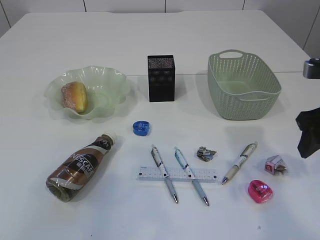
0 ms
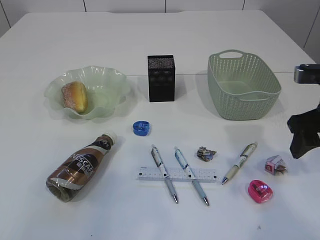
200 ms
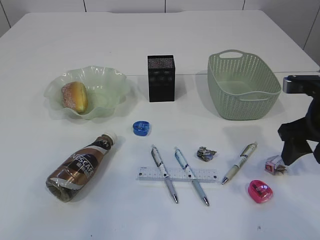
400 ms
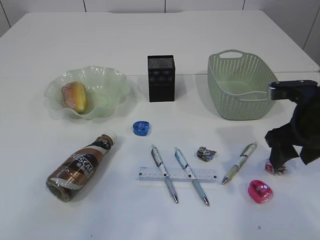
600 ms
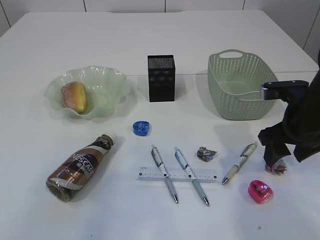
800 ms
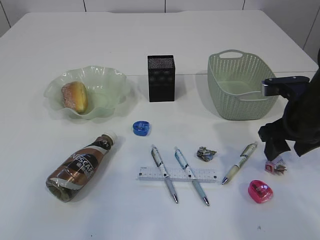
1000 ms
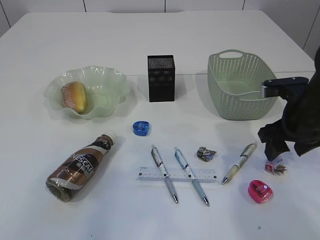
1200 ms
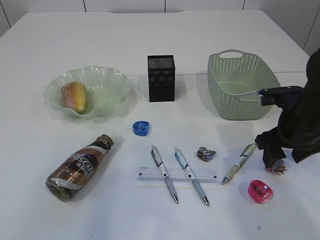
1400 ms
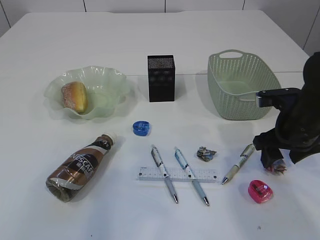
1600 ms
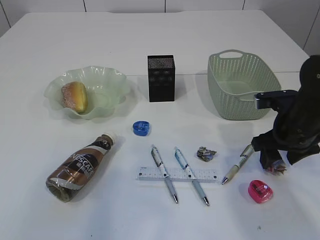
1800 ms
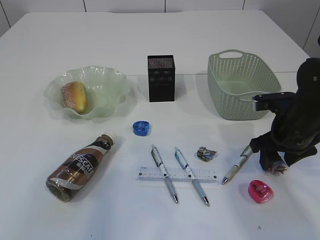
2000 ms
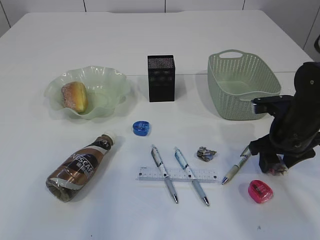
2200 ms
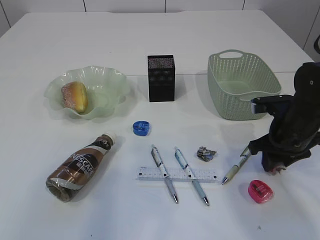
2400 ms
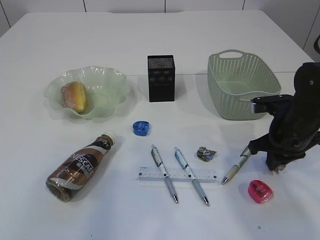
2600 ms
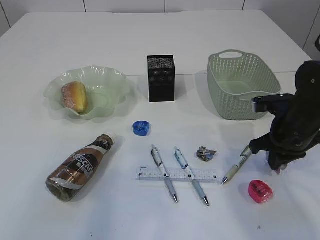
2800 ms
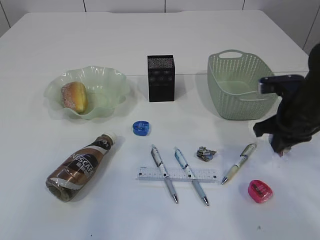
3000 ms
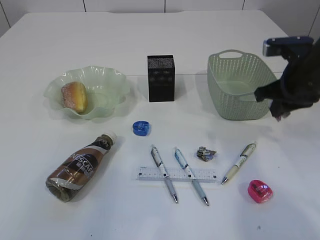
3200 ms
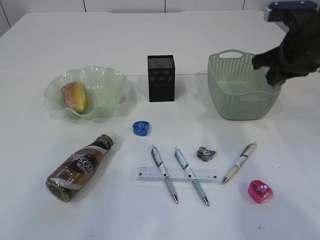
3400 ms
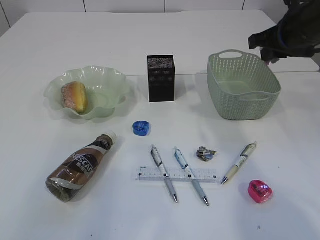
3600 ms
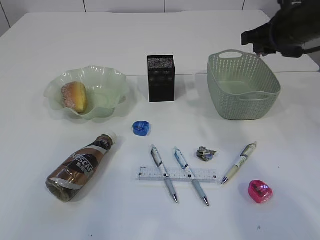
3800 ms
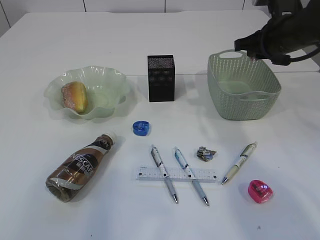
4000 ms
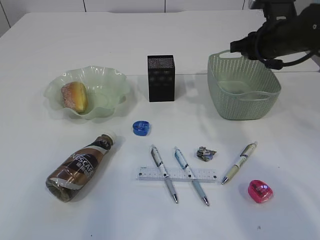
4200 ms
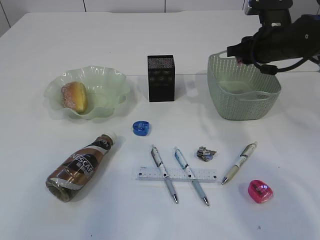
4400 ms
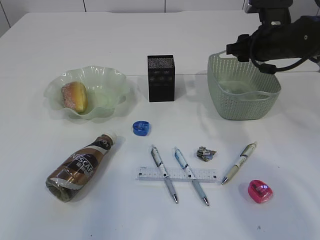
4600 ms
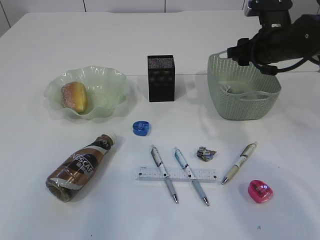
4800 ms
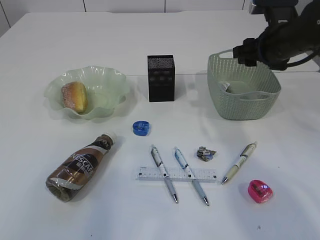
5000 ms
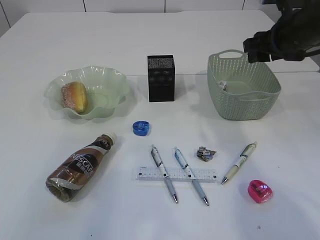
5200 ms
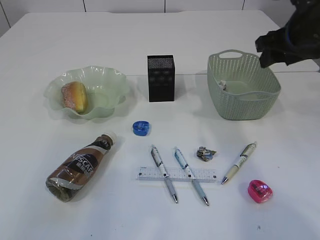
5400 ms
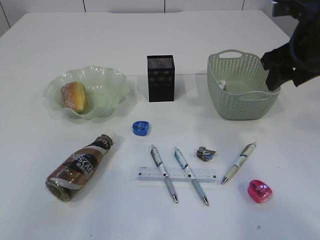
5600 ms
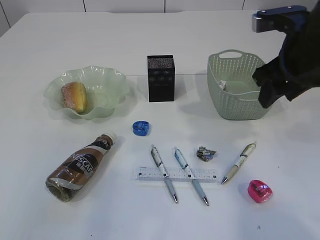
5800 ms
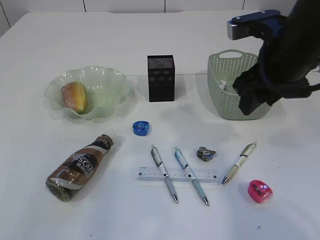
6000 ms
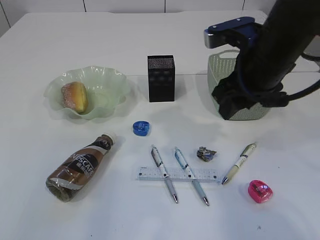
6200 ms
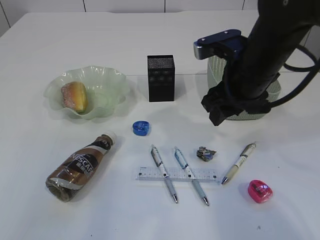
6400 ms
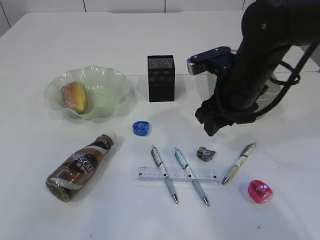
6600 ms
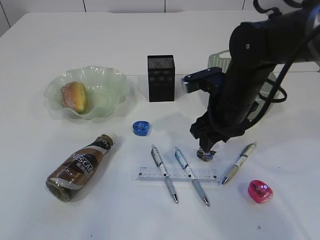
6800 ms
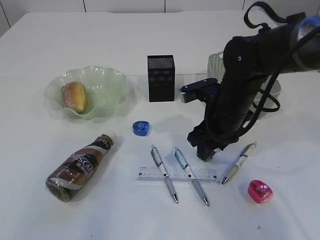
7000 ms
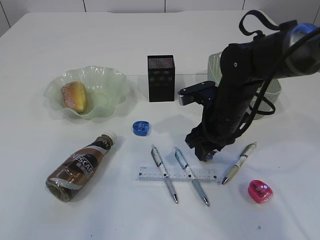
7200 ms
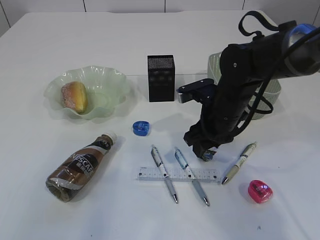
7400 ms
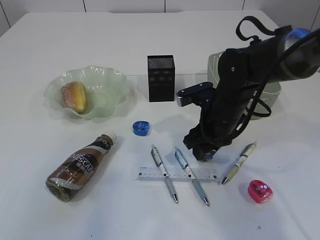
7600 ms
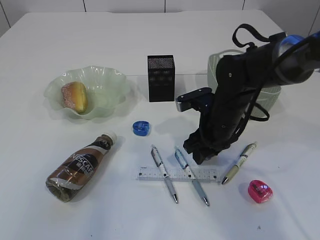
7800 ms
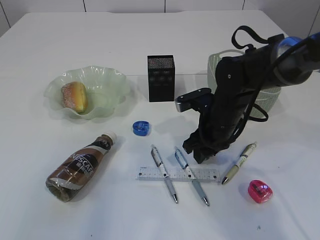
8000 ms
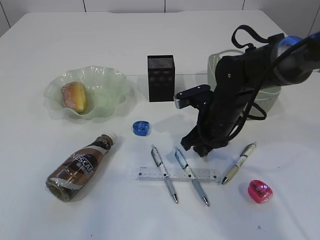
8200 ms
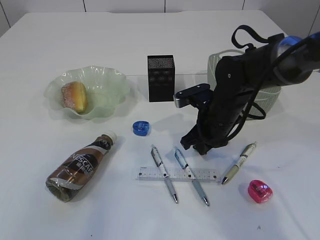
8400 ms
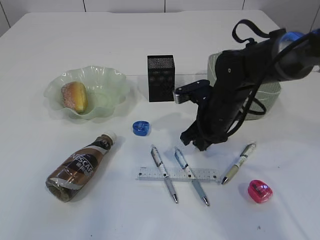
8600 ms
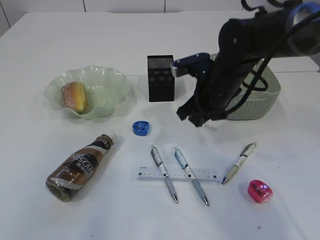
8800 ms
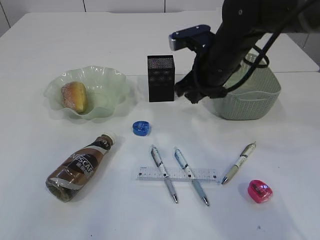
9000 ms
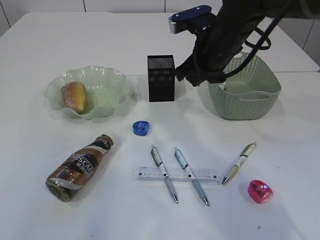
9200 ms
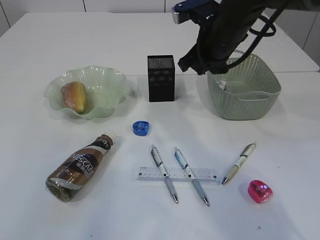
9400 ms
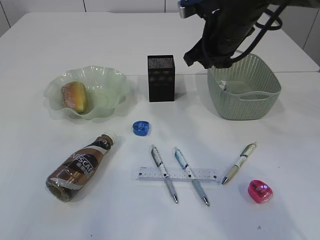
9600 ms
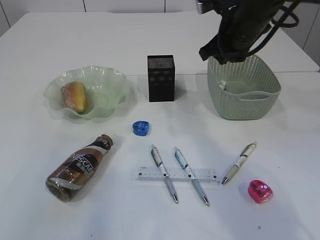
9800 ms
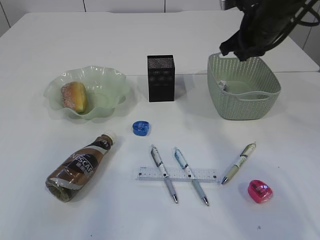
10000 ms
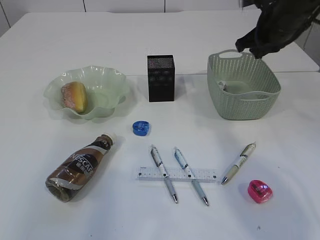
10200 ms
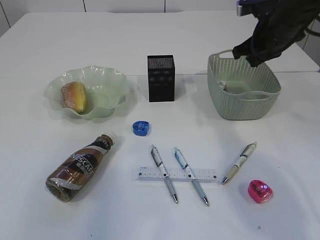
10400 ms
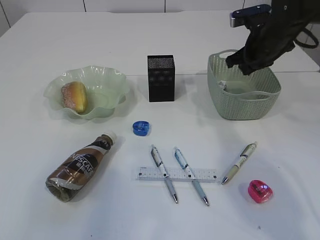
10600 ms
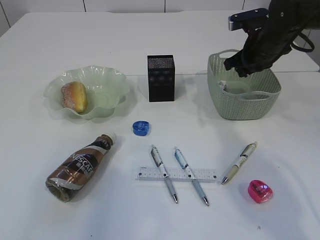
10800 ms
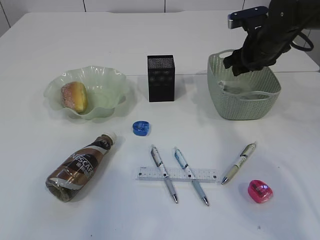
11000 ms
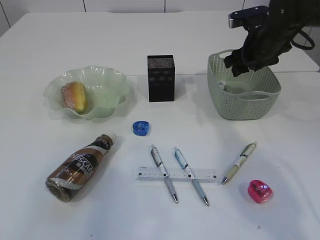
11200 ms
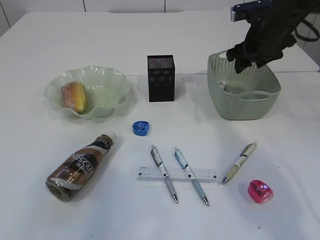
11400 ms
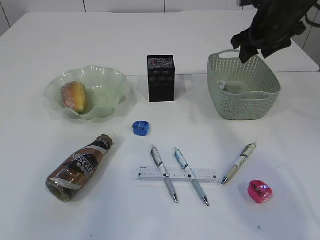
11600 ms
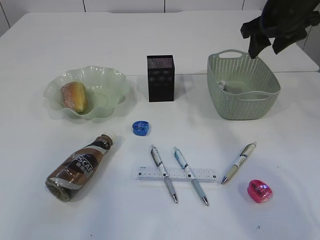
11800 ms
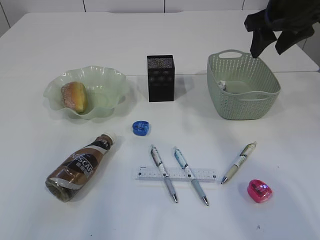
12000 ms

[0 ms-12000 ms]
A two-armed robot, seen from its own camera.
Step, 0 ms to 3000 ms: Pick up the waste paper.
Step, 3200 ms to 5400 ms: Place the waste paper in the basket.
Step, 5600 ms to 8800 ms: Pick up the waste paper.
Step, 9000 ms to 11400 ms: Place the waste paper in the basket.
0 ms to 1600 ms: The right gripper goes about 10 cm downward and forward.
1600 ms to 3000 ms: The right gripper closes.
3000 ms to 4400 ms: The right gripper heads forward and upward, covering roughly 10 cm, and opens up.
4400 ms to 6000 ms: The right gripper travels backward, upward and to the left by about 15 cm.
6000 ms to 7600 ms: The right gripper heads downward, covering about 15 cm.
7600 ms to 9000 ms: The right gripper travels upward by some 10 cm, and closes up.
9000 ms to 10400 ms: The right gripper heads to the right and forward, covering approximately 15 cm.
10400 ms to 12000 ms: The right gripper heads upward, covering approximately 5 cm, and opens its fingers.

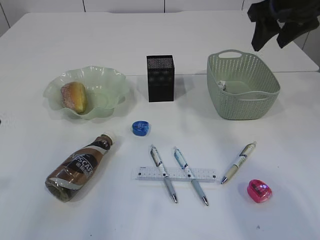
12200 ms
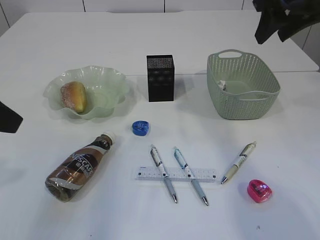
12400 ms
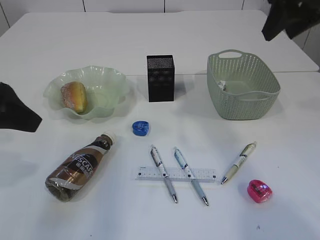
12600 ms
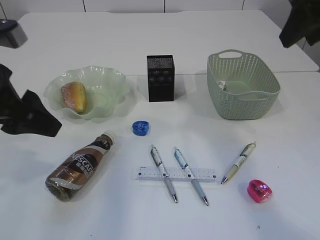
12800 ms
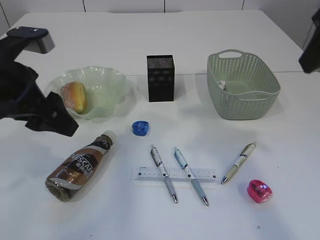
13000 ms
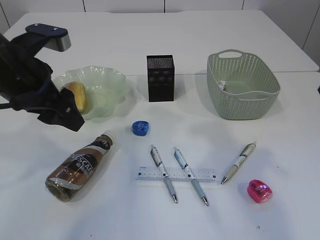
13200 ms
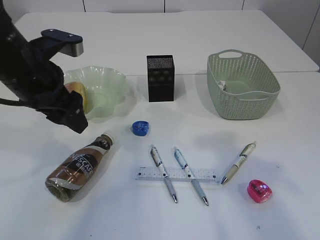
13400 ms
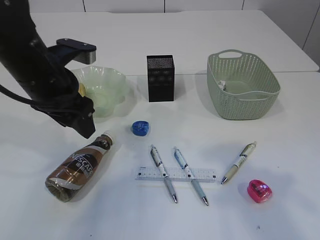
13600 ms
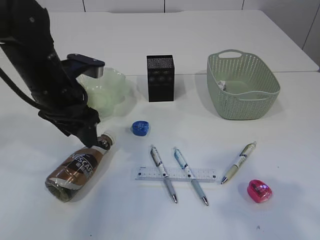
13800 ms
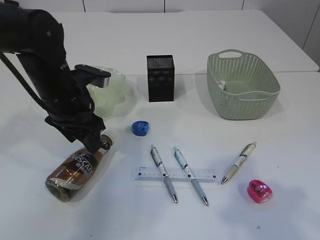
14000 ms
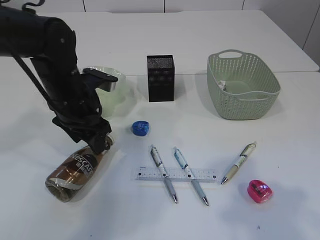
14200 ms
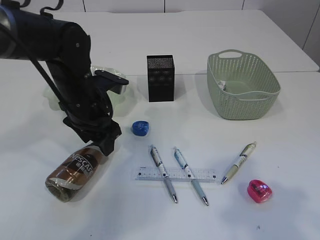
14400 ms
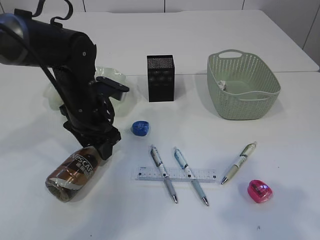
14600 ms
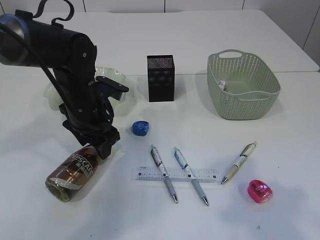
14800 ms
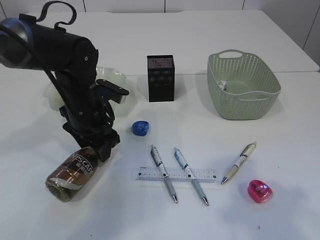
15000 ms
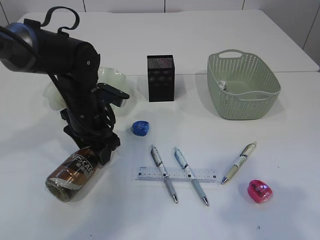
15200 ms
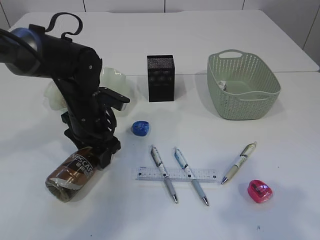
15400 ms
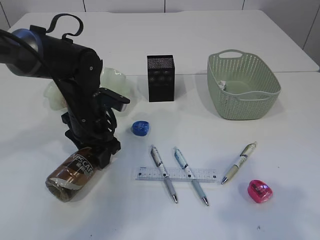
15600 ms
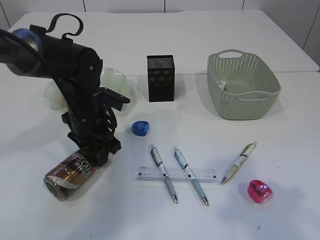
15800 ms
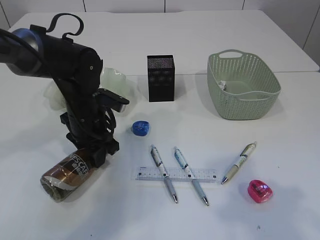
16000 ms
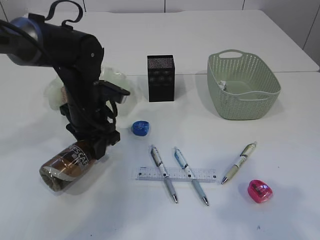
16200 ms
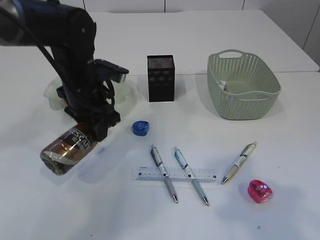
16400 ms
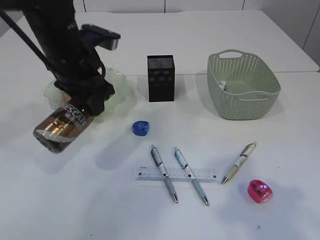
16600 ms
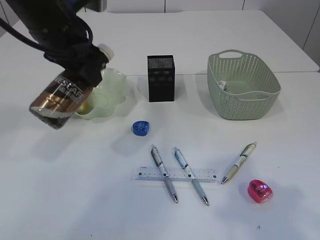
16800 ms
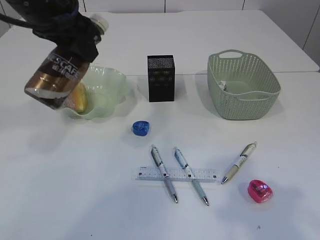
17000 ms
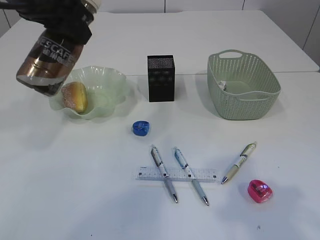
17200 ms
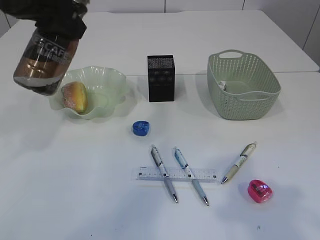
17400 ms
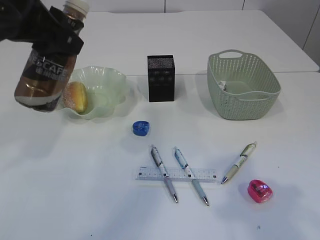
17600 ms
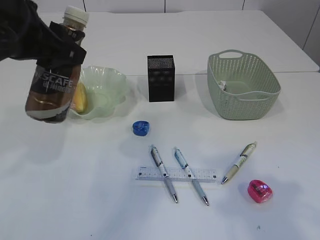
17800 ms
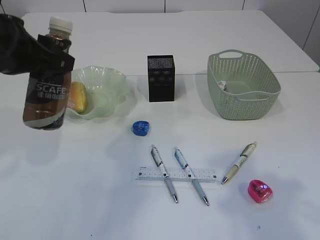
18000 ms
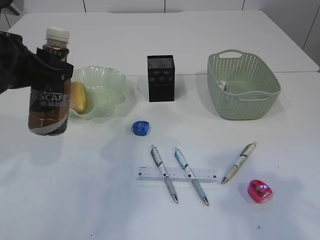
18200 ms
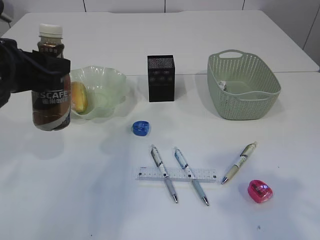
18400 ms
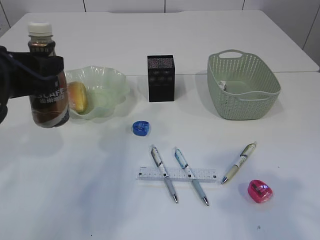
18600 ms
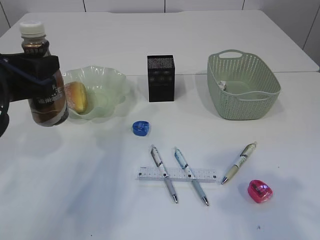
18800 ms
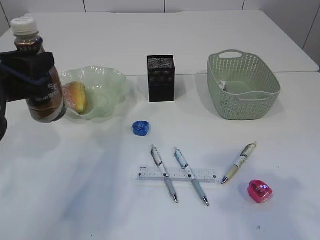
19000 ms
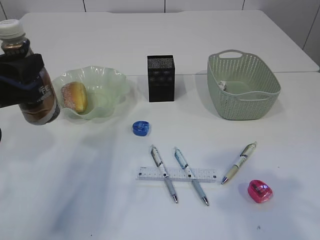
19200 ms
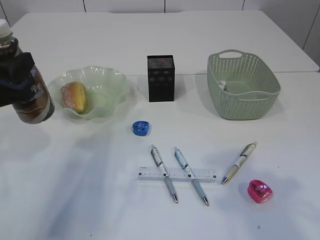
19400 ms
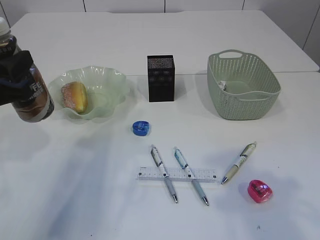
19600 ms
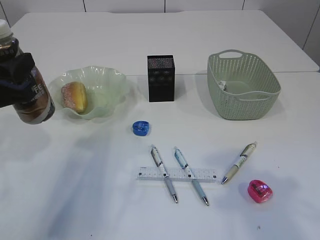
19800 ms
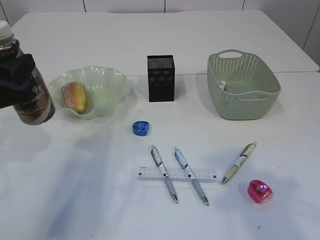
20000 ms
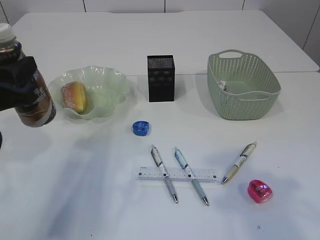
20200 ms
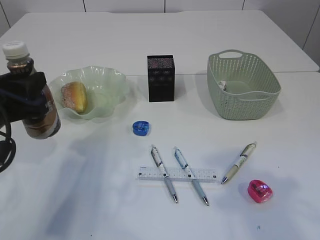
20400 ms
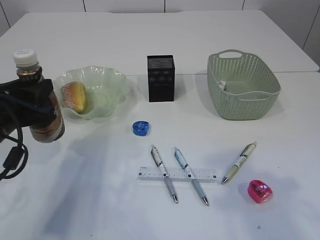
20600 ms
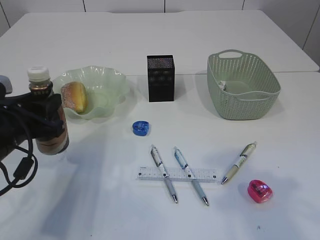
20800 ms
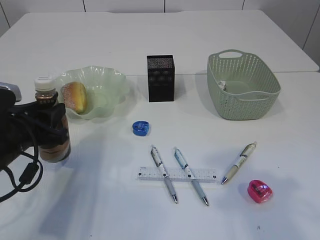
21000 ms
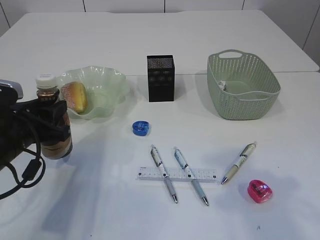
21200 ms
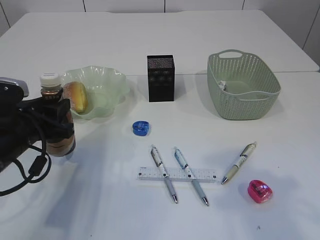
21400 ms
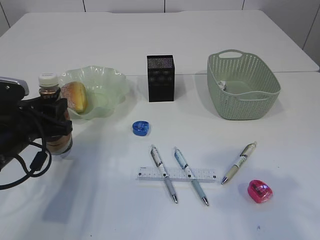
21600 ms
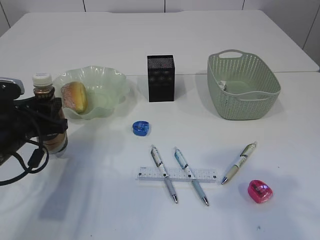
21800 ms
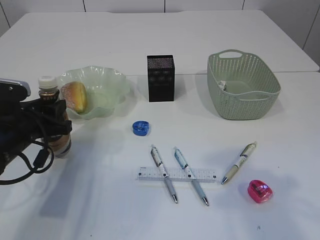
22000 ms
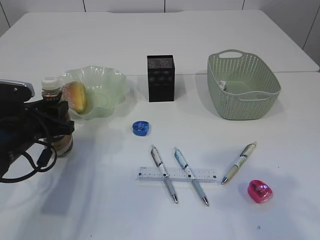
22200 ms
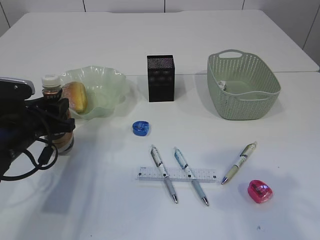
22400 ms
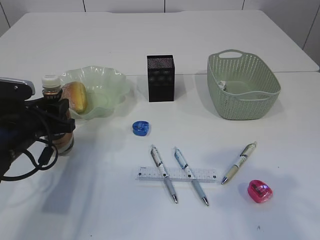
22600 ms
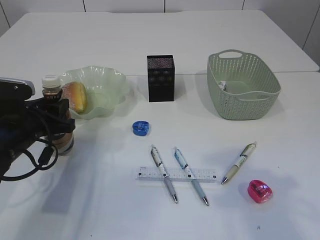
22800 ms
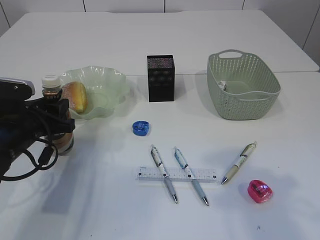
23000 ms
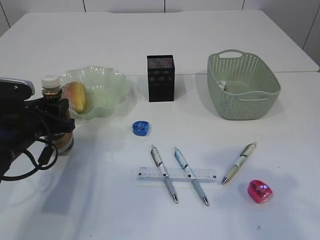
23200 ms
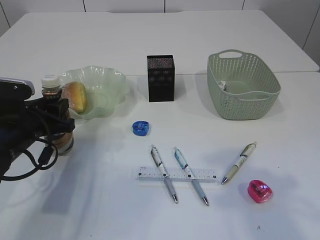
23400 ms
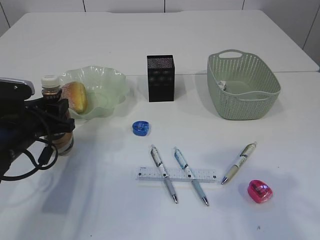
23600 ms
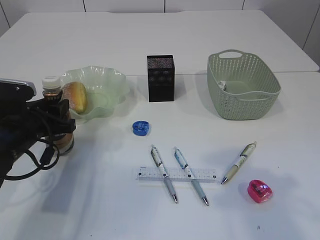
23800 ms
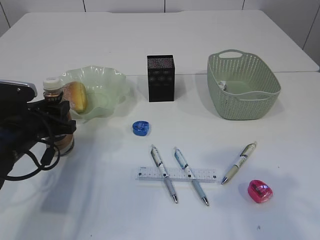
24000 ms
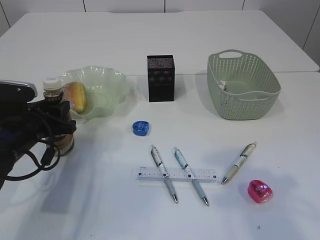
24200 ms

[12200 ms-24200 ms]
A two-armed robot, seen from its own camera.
Step, 12200 ms to 16800 ms: Pick up the bottle with the left arm.
12200 ms to 13800 ms: The left gripper goes roughly 20 cm forward, downward and to the right; the right gripper heads backward, covering some 25 cm.
13800 ms to 15200 ms: The left gripper moves downward, roughly 5 cm.
15200 ms to 16600 ms: The left gripper is displaced upward by about 10 cm, and closes its fingers.
16600 ms to 18200 ms: The left gripper travels backward and to the left by about 10 cm, and travels upward and back again, some 10 cm each way.
18200 ms to 19800 ms: The left gripper shifts by roughly 5 cm.
19800 ms to 21200 ms: The left gripper shifts about 10 cm downward.
21200 ms to 22600 ms: The grippers make only small movements.
22600 ms to 24200 ms: The two grippers keep their place.
